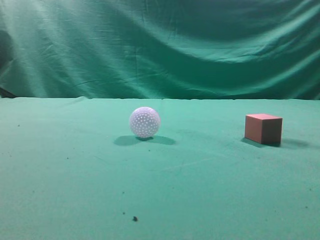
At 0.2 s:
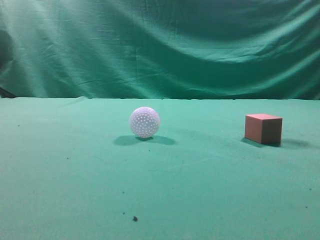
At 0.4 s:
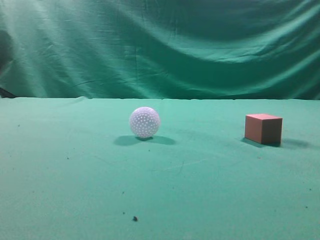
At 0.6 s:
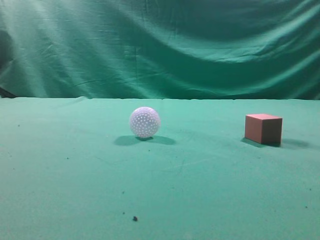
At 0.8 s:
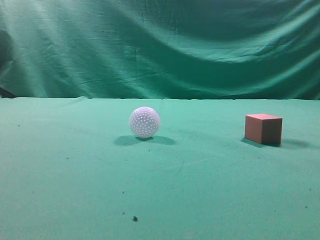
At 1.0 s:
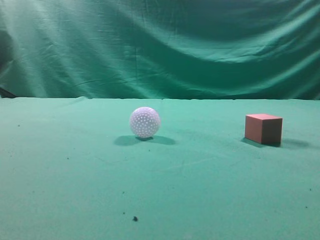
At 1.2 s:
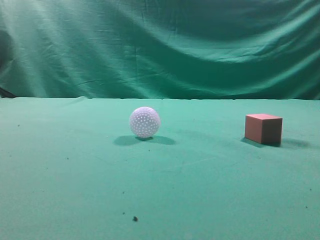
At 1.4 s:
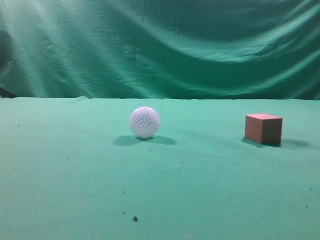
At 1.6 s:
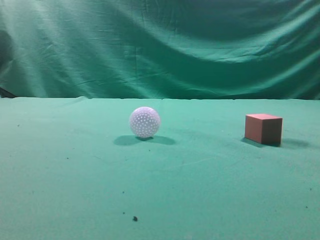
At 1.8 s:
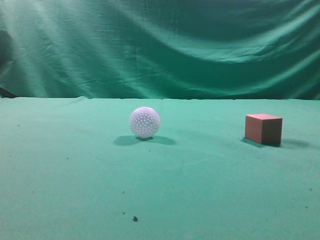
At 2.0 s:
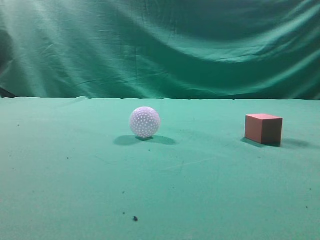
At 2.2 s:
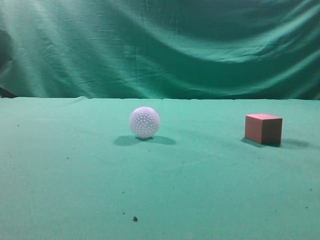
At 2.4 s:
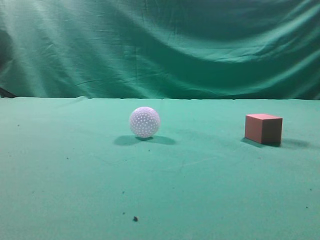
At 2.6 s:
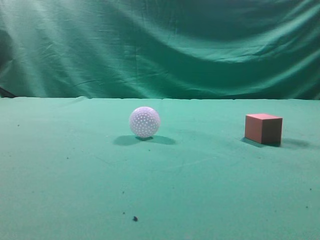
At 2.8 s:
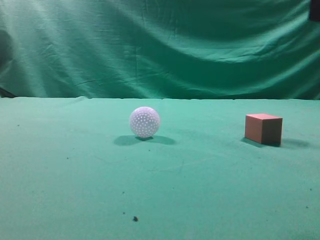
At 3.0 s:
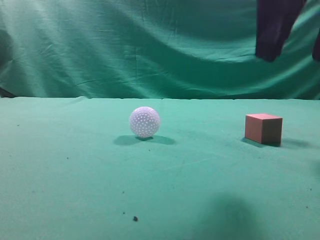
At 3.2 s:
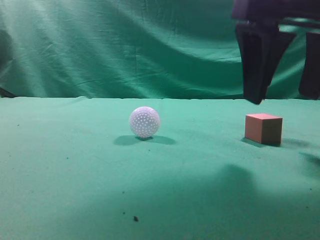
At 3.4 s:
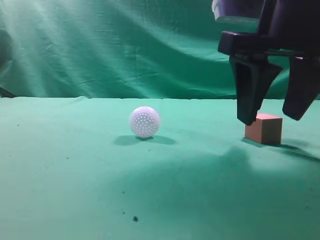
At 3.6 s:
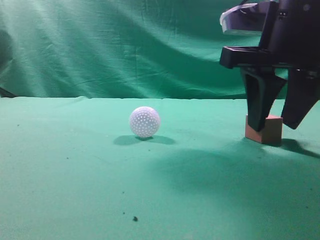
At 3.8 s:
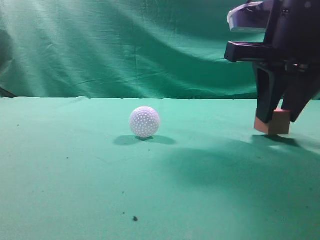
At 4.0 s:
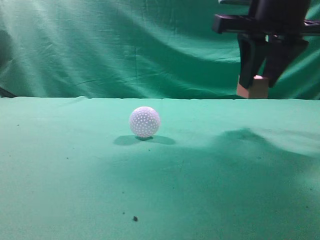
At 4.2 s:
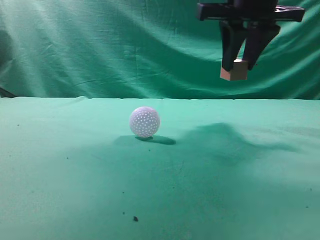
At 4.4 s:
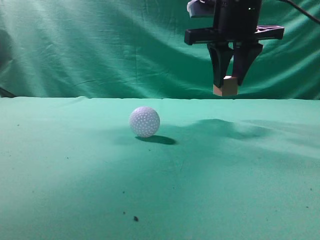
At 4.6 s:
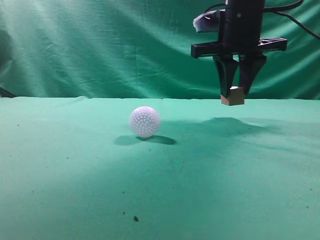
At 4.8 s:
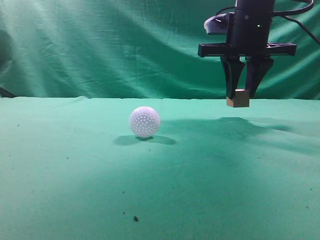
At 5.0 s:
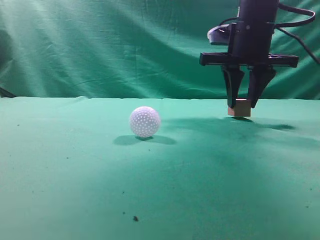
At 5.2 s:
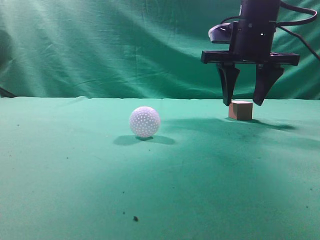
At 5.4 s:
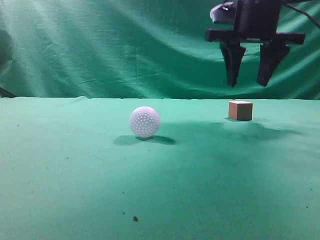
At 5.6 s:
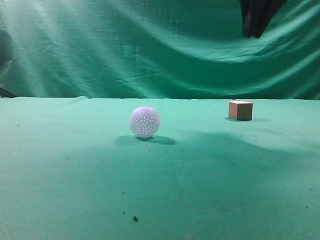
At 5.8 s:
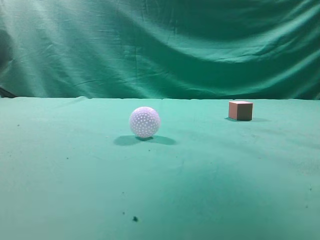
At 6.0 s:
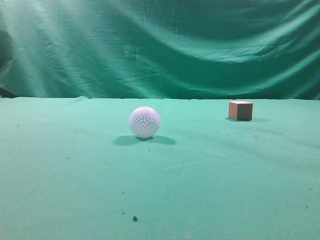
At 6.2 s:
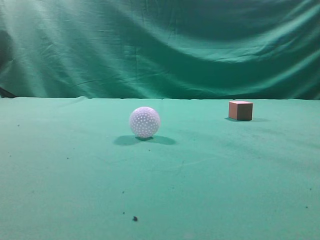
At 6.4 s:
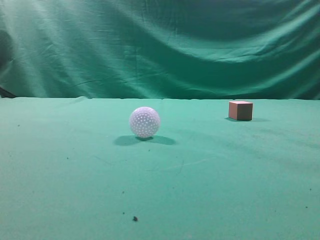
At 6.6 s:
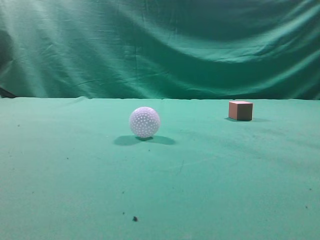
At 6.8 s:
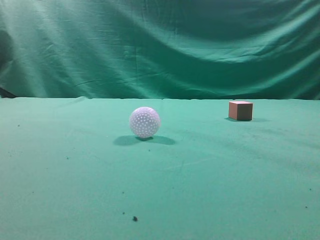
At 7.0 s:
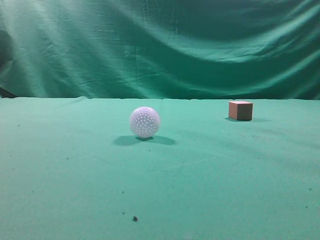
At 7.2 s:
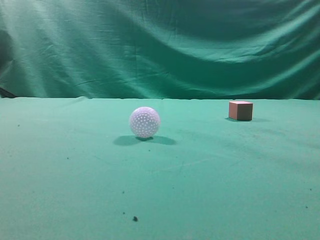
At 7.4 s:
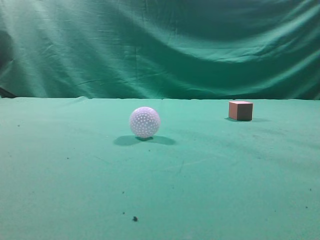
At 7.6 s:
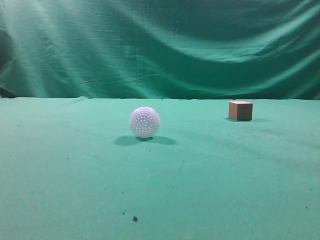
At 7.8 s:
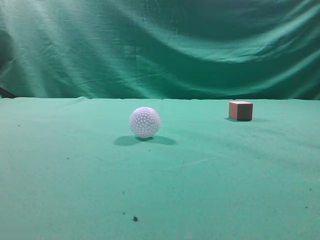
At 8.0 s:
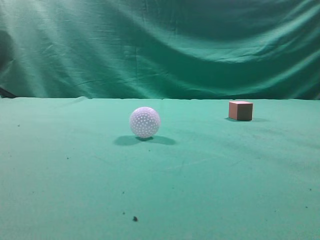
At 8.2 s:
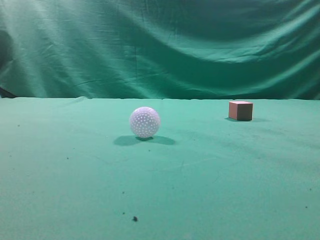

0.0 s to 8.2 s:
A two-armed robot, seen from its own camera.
Task of the whole recording: pick up the cube block and place it in another position on the table.
Step, 0.0 to 3.8 s: Pick up the small cube.
Step, 4.0 to 5.2 s: Place the small cube on the ahead of the table.
1.6 to 3.2 s: The right gripper moves forward and to the left, approximately 25 cm, and opens its fingers.
3.2 to 5.0 s: The right gripper moves forward, about 15 cm, and closes up.
5.0 to 6.6 s: The right gripper goes roughly 40 cm backward and upward, and closes its fingers.
